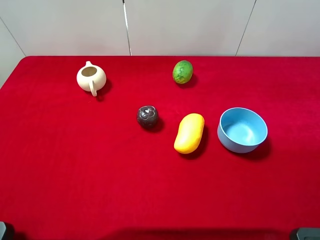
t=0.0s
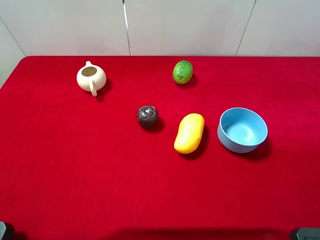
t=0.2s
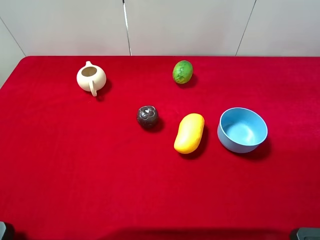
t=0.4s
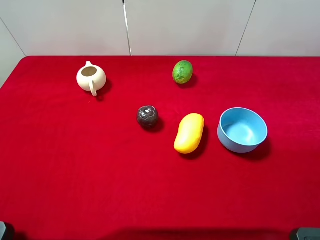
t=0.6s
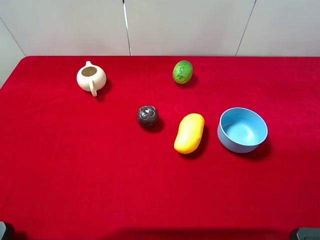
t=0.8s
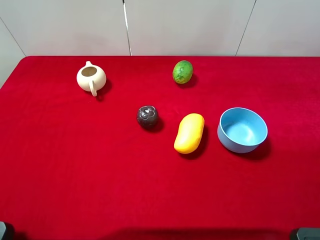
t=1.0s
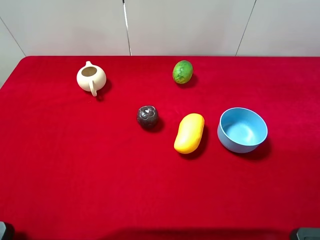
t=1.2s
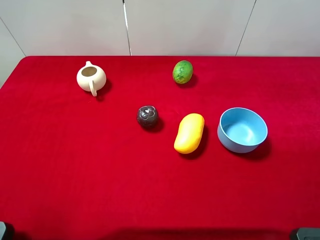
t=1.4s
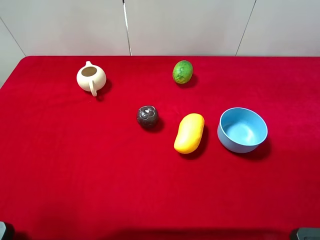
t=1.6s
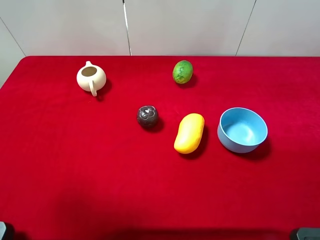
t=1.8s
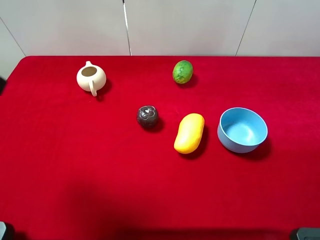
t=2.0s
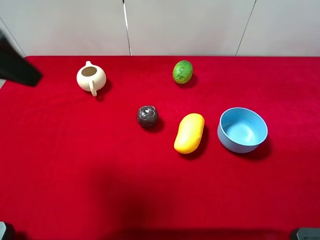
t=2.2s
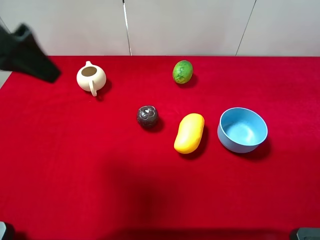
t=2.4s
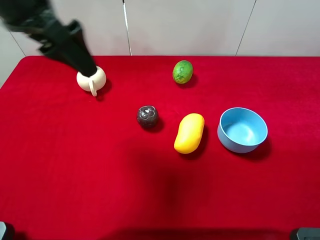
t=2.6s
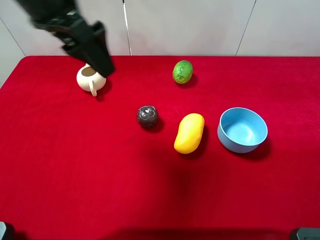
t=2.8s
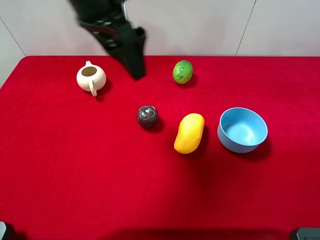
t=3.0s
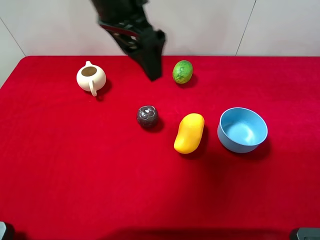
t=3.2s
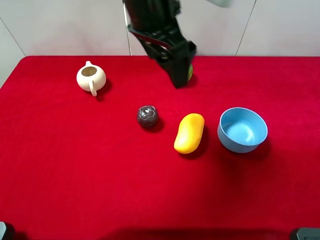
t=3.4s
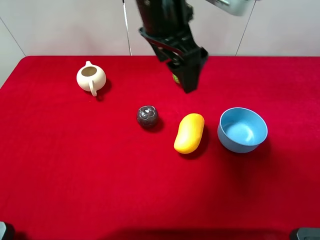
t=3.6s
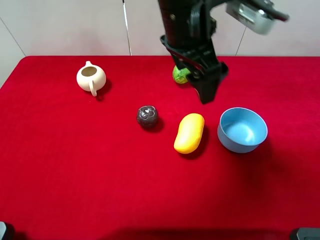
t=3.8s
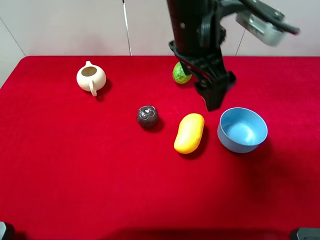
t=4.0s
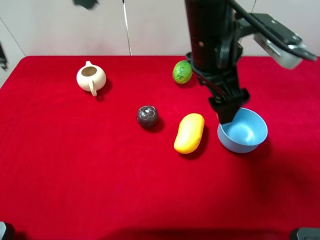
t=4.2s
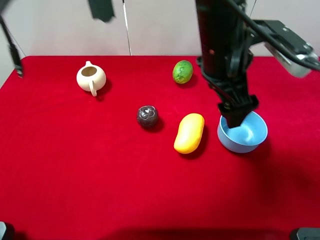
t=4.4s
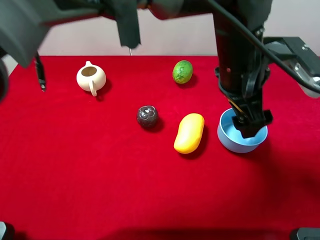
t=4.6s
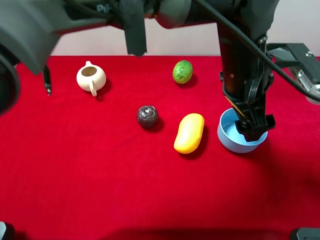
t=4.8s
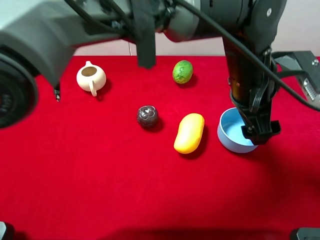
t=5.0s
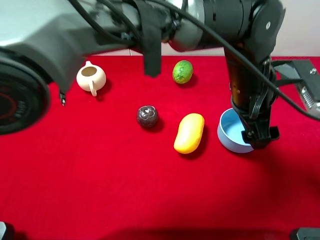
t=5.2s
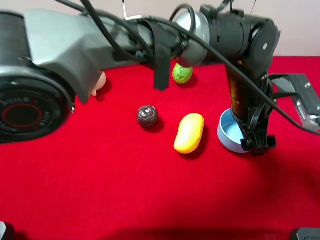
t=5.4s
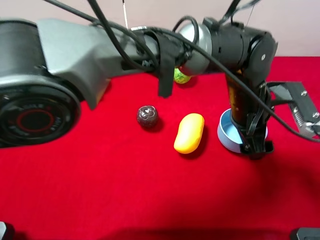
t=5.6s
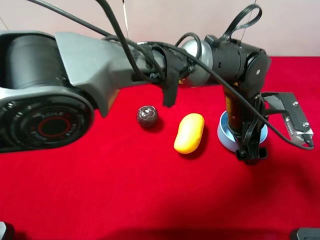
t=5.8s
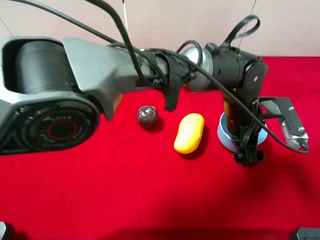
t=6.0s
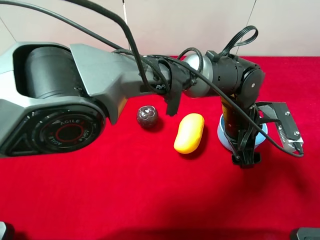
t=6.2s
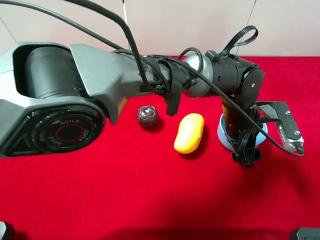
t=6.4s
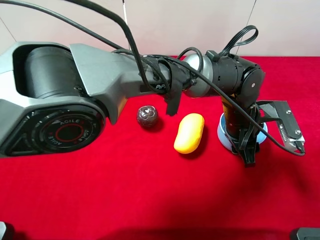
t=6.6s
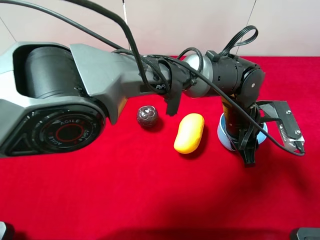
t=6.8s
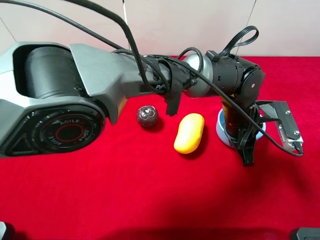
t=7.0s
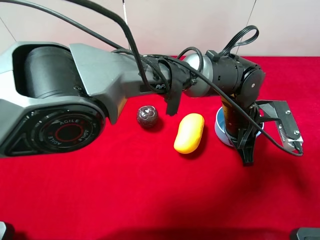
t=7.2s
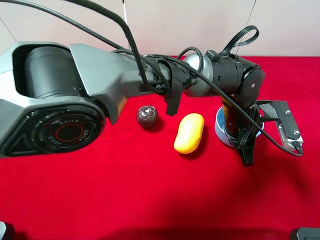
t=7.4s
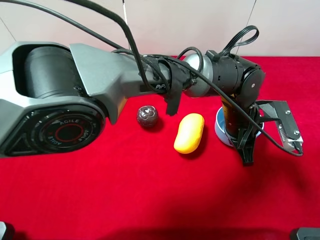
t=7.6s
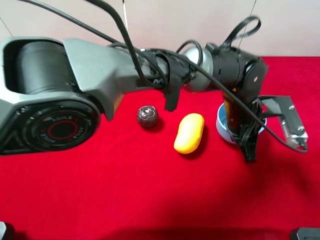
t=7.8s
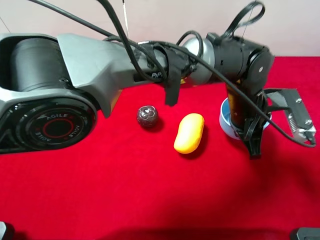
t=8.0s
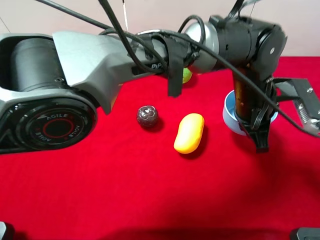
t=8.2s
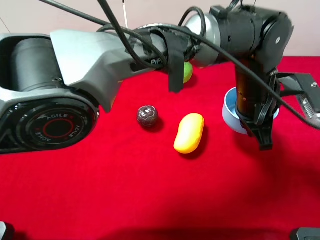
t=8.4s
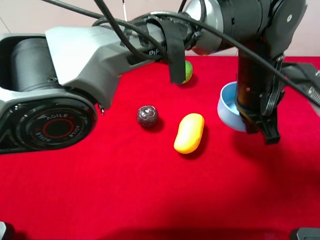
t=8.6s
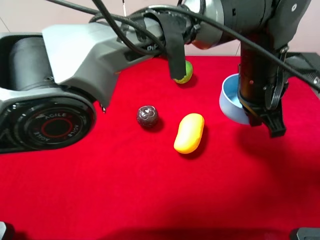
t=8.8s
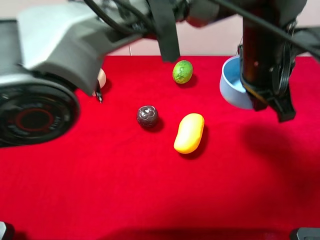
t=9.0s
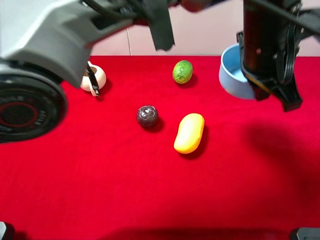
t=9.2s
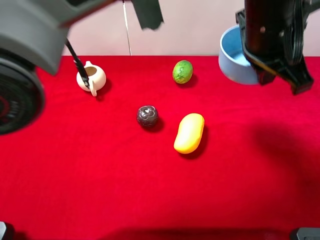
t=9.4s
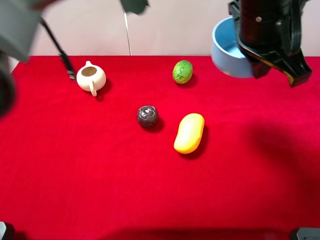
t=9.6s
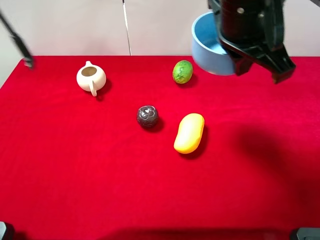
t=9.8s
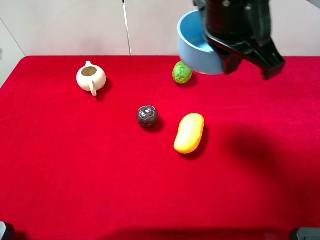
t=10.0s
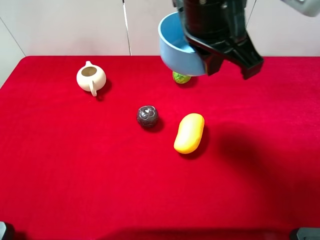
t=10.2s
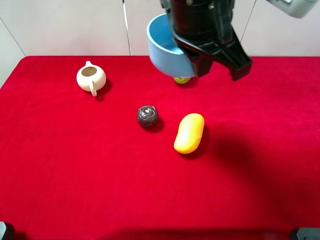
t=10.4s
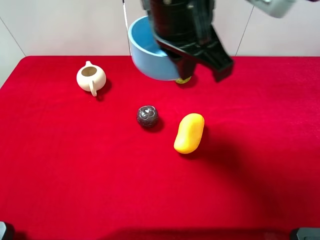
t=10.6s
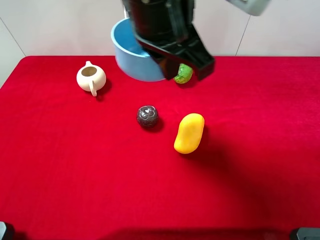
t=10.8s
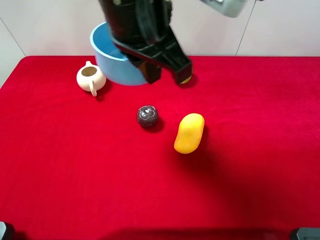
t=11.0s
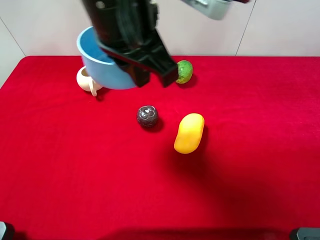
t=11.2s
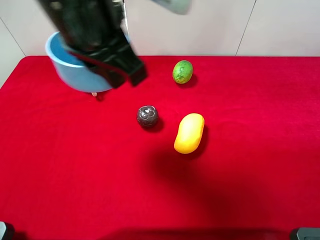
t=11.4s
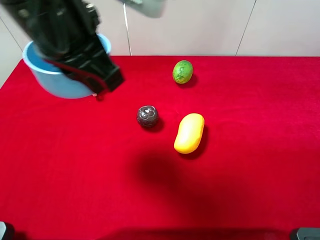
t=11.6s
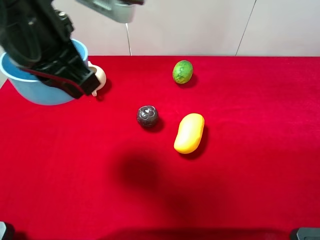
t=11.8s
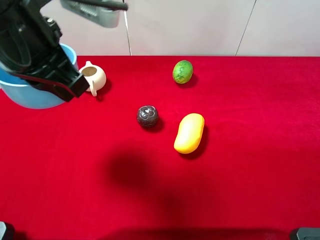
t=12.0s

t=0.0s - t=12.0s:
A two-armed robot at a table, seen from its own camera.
Task of the whole recording: the gripper move the object.
Step, t=0.0s - t=7.2s: Grasp the blue bowl with the left gripper.
t=1.6s - t=3.0s: The left gripper shifts about 30 cm to the right and forward.
t=3.0s - t=4.4s: The left gripper travels to the right and downward by approximately 20 cm.
t=4.4s - t=6.0s: The left gripper shifts some 15 cm downward and to the right.
t=6.0s - t=7.6s: The left gripper closes its fingers.
t=7.6s - t=9.0s: The left gripper heads upward, covering approximately 15 cm.
t=9.0s - t=10.4s: The left gripper moves to the left and upward, some 15 cm.
t=10.4s - t=12.0s: The left gripper goes roughly 20 cm to the left.

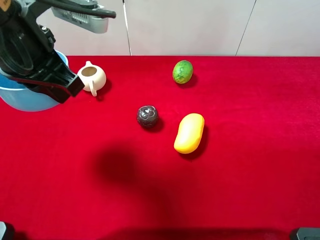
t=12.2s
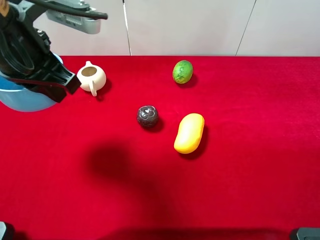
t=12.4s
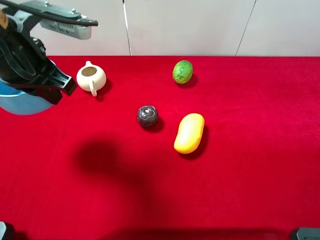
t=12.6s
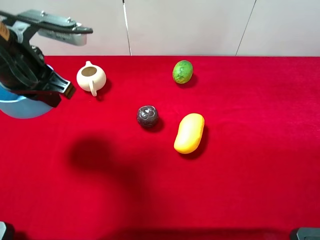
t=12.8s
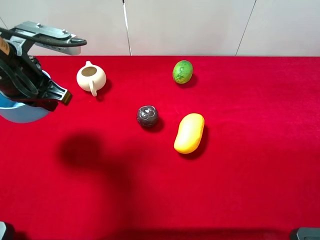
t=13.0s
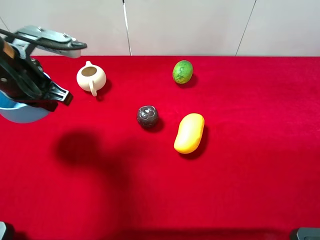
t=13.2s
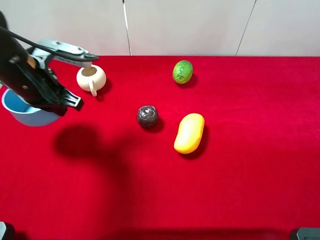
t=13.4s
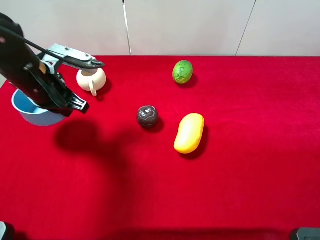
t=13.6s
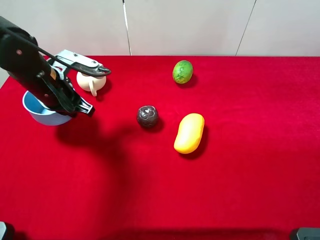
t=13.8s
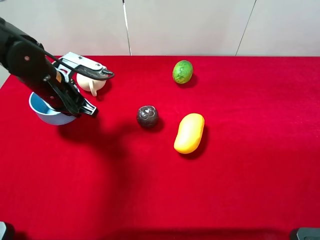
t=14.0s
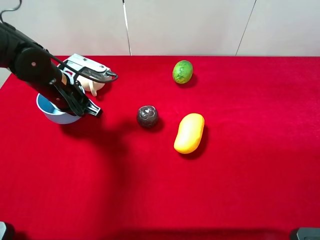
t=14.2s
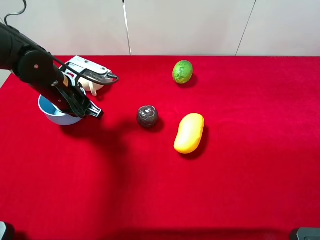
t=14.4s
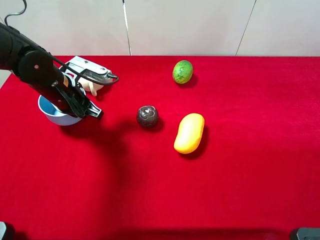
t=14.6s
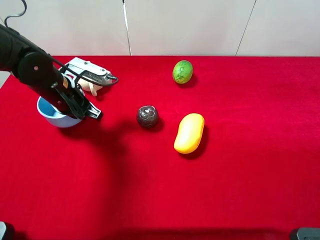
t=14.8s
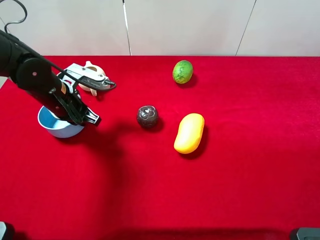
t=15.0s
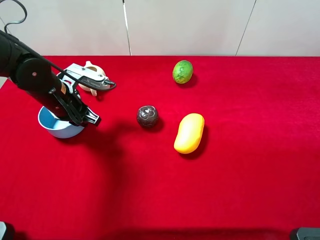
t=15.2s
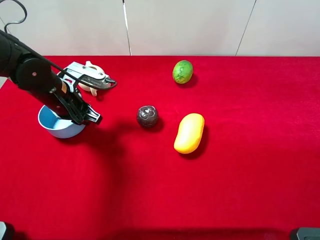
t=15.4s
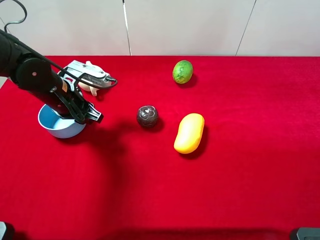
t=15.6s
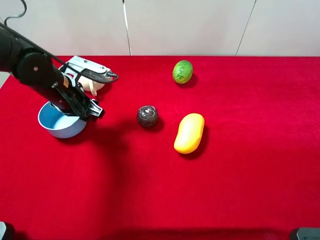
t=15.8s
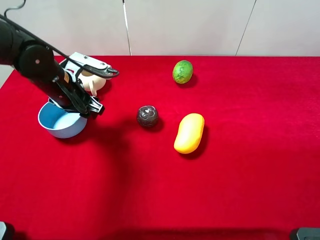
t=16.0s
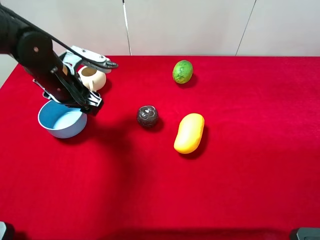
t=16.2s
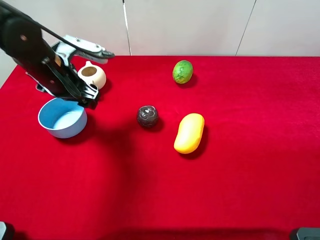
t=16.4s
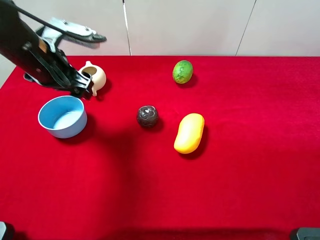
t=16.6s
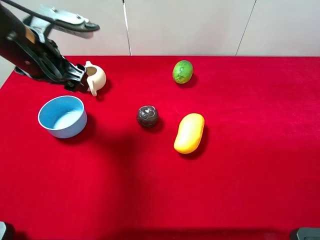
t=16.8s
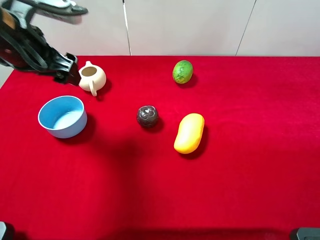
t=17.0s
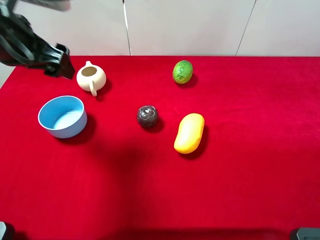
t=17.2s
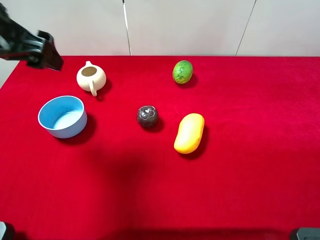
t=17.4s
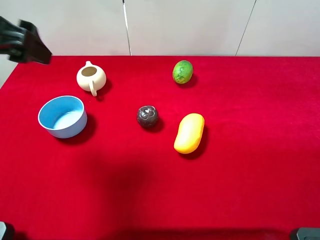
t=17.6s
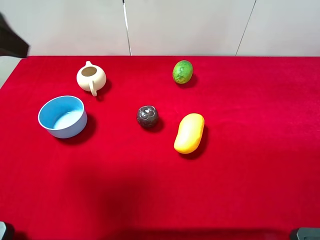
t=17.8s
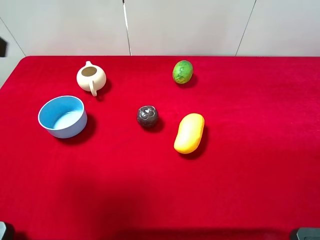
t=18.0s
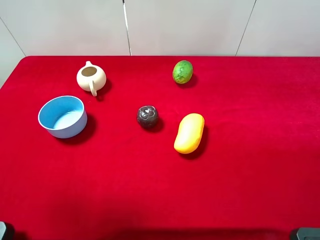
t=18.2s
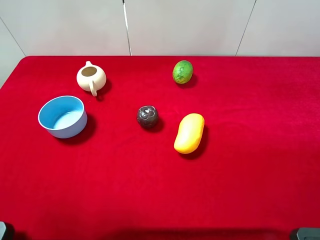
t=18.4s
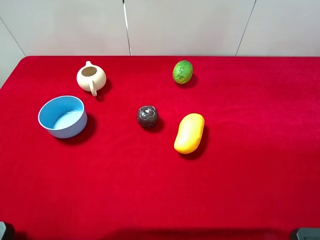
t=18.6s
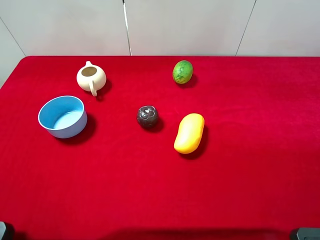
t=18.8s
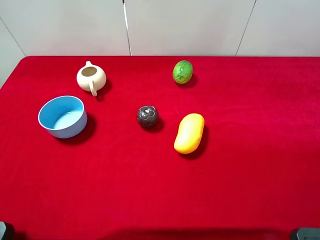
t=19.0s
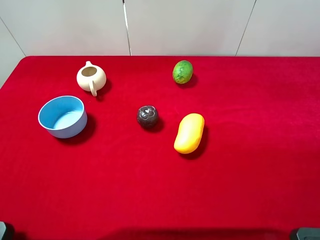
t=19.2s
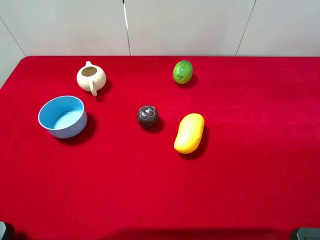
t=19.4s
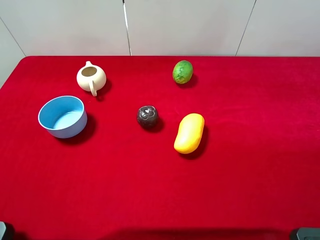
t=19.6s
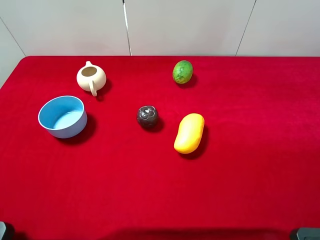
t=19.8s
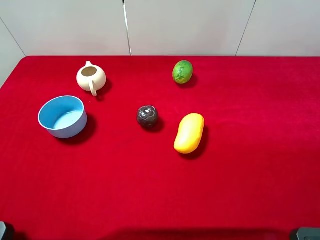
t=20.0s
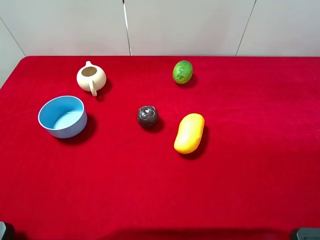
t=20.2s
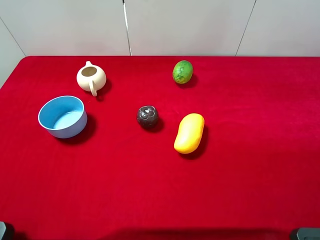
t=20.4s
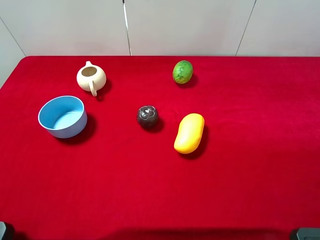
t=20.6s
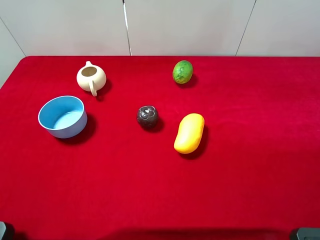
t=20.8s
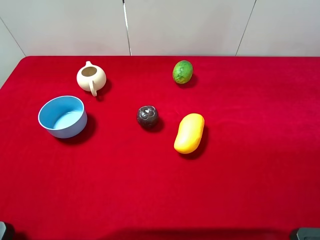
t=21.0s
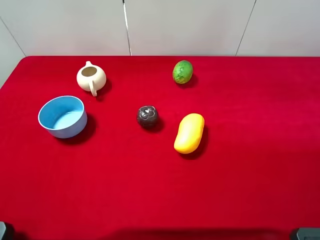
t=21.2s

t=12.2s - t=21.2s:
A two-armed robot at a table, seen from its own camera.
Task of the whole recording: the gripper move the object.
Step, t=12.2s - t=16.6s: Place the blue bowl on the table with the left gripper.
t=12.2s - t=13.8s: The left gripper goes approximately 15 cm downward and forward.
t=13.8s - t=15.2s: The grippers make only small movements.
t=15.2s - t=16.6s: The left gripper goes roughly 10 cm upward, and opens up.
t=16.6s - t=18.2s: The left gripper goes some 25 cm backward, upward and to the left.
t=19.8s - t=21.2s: Both grippers stay about where they are.
